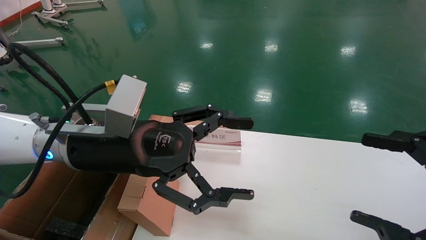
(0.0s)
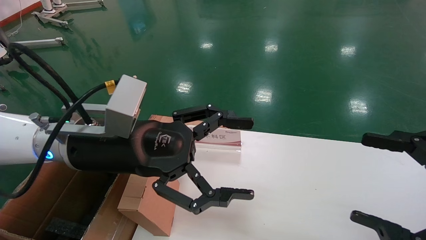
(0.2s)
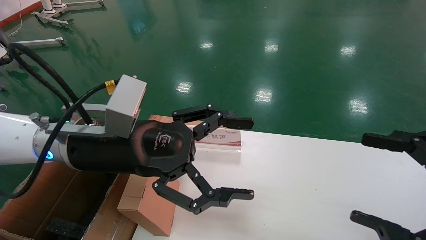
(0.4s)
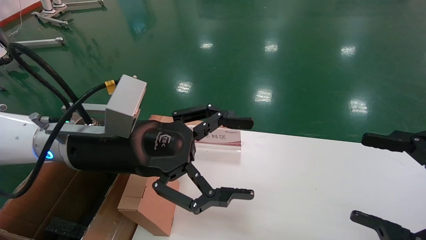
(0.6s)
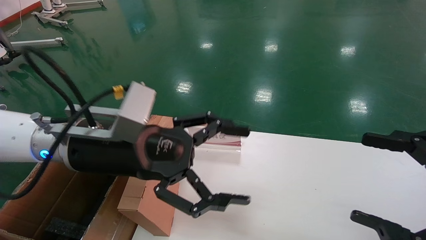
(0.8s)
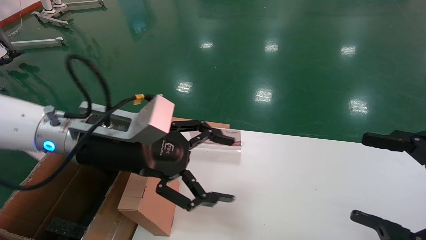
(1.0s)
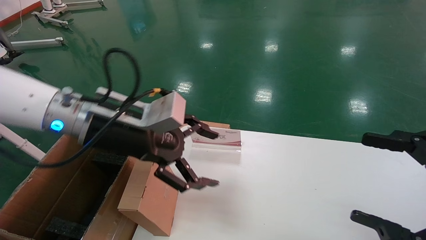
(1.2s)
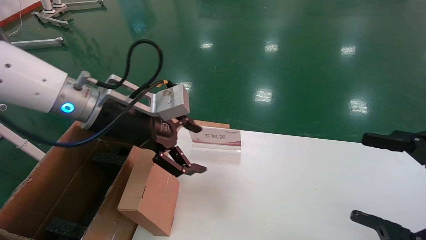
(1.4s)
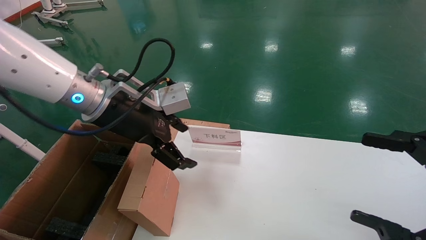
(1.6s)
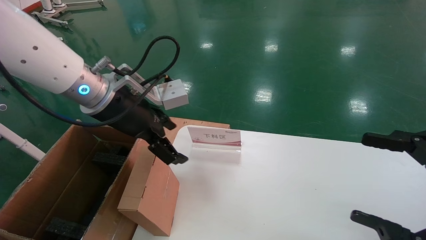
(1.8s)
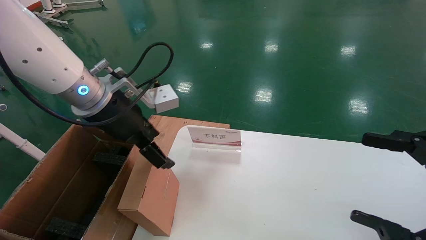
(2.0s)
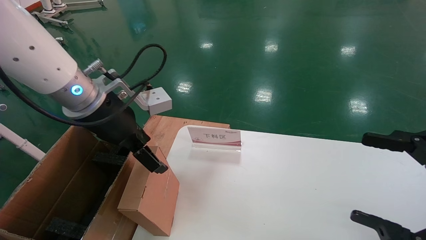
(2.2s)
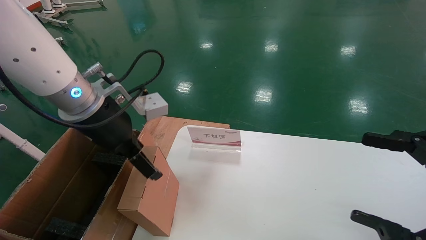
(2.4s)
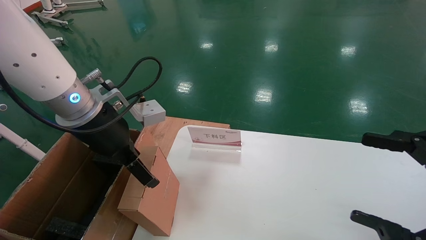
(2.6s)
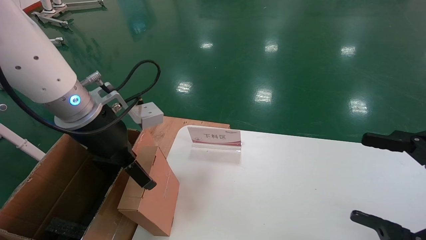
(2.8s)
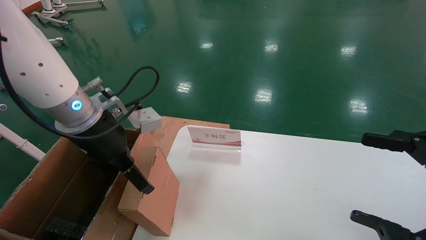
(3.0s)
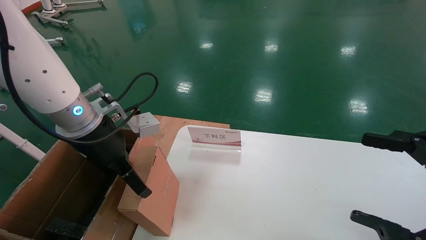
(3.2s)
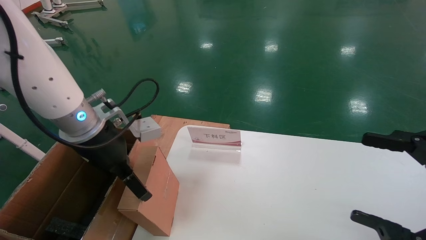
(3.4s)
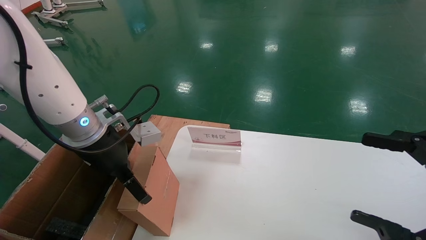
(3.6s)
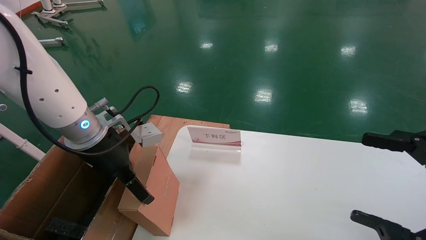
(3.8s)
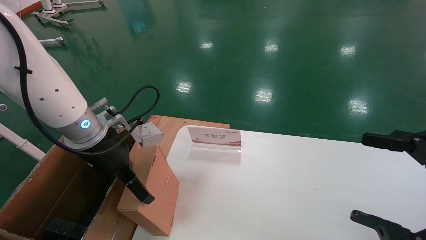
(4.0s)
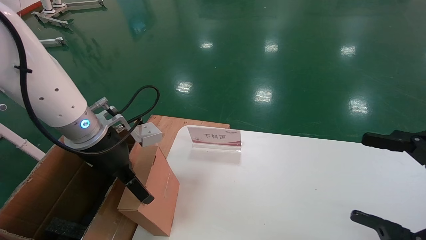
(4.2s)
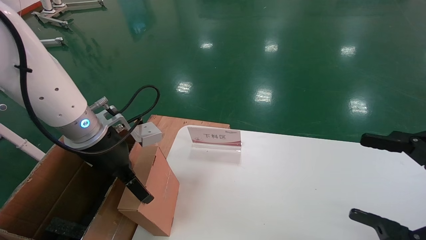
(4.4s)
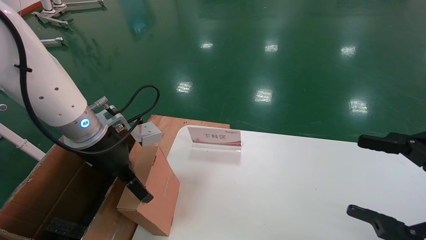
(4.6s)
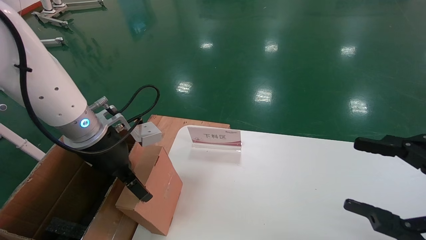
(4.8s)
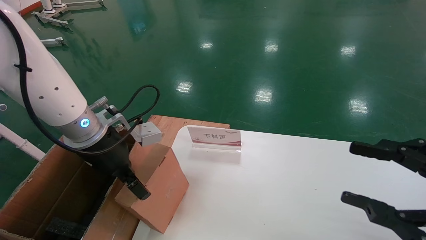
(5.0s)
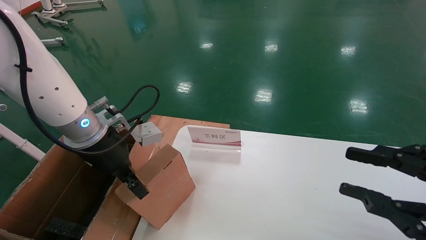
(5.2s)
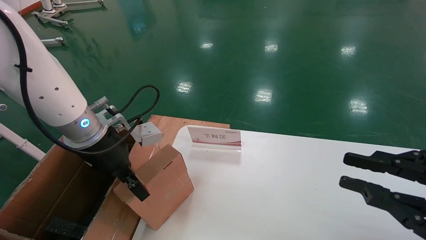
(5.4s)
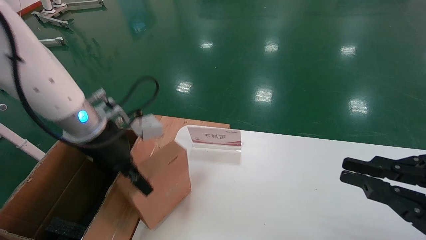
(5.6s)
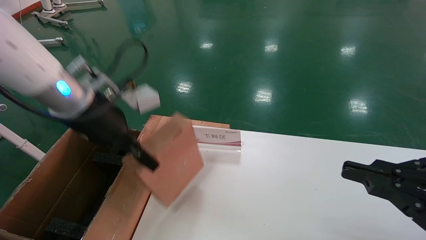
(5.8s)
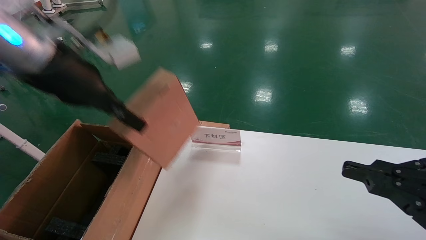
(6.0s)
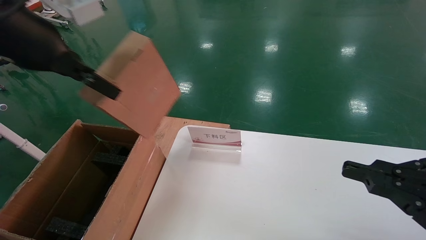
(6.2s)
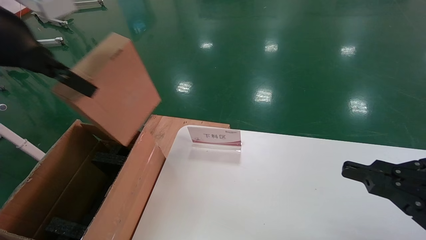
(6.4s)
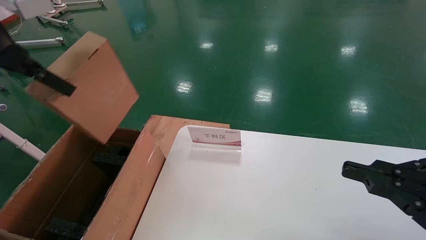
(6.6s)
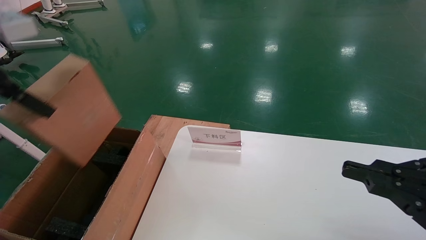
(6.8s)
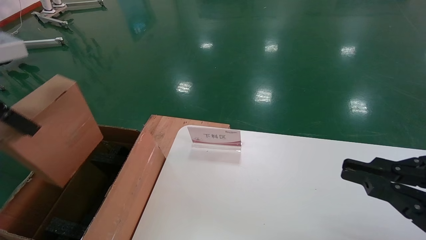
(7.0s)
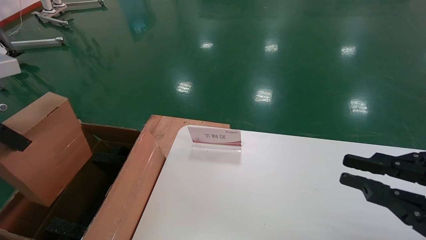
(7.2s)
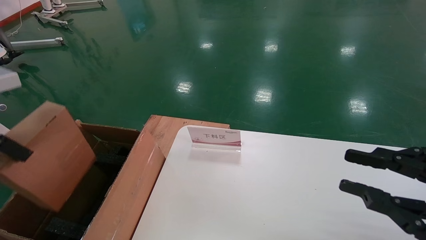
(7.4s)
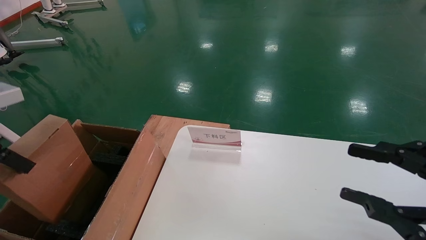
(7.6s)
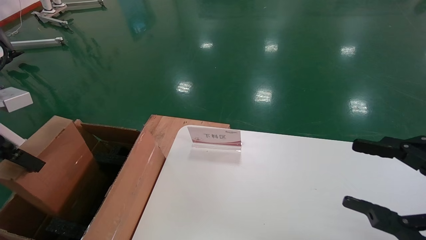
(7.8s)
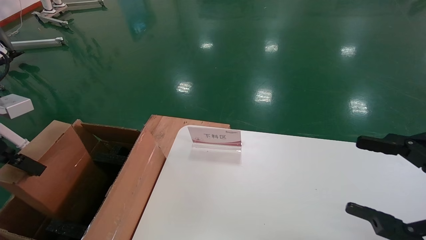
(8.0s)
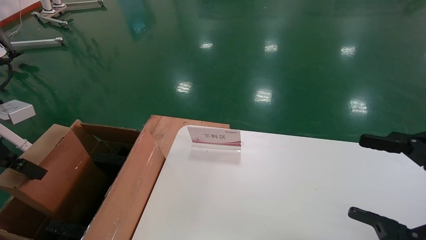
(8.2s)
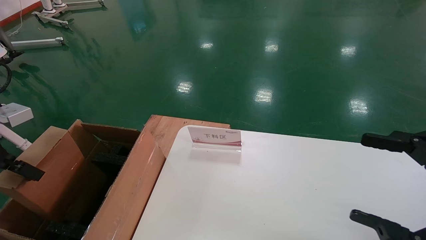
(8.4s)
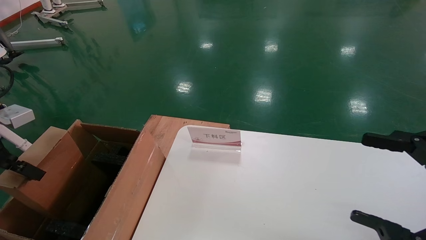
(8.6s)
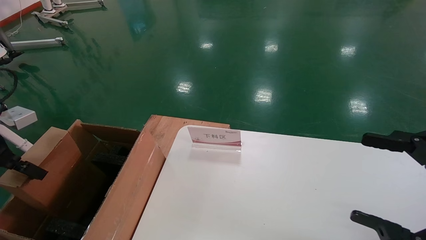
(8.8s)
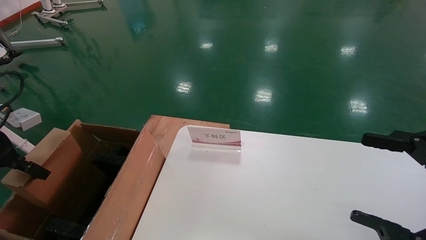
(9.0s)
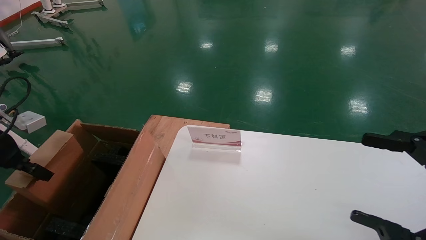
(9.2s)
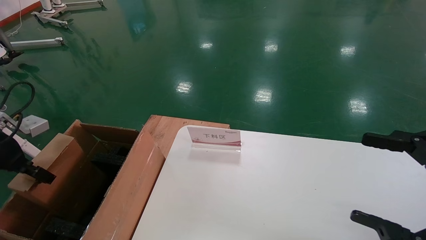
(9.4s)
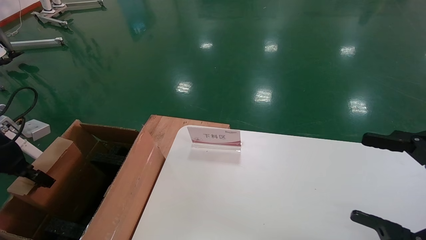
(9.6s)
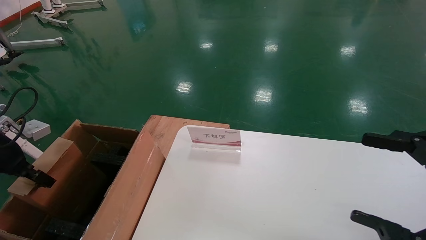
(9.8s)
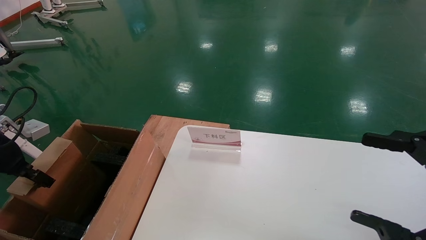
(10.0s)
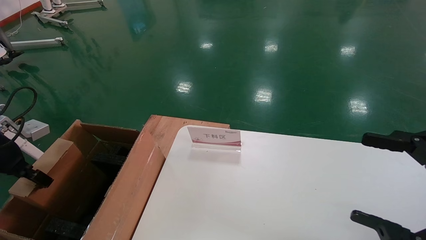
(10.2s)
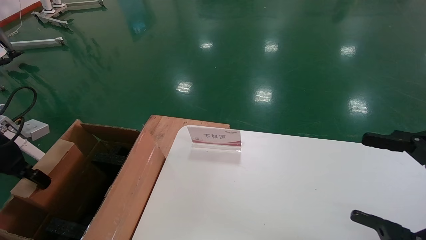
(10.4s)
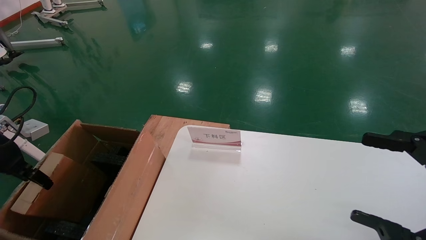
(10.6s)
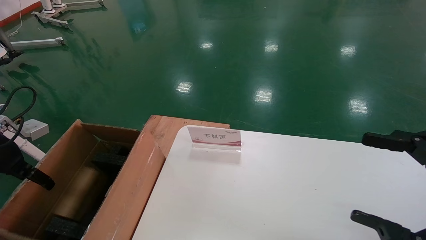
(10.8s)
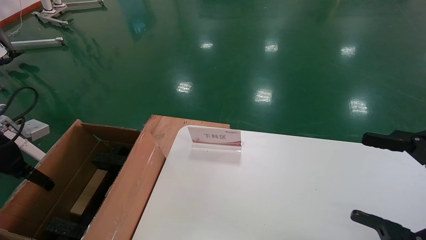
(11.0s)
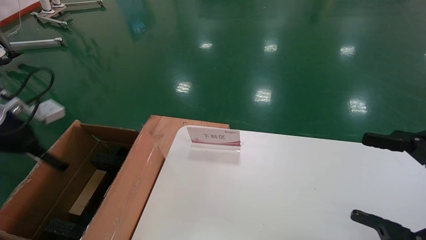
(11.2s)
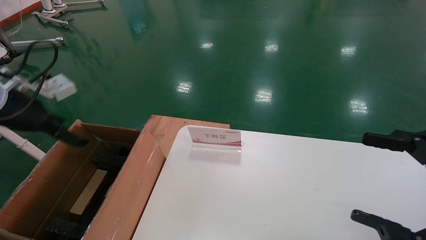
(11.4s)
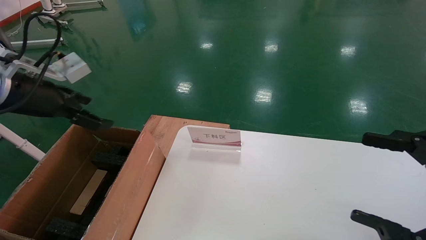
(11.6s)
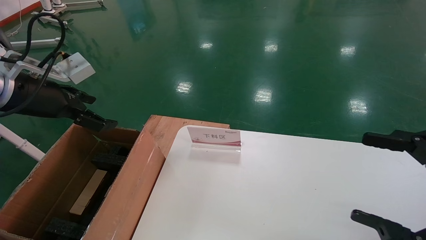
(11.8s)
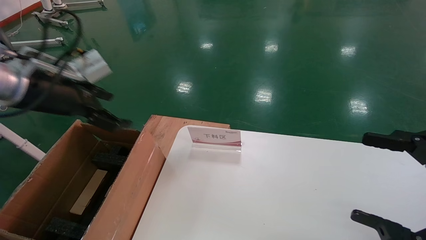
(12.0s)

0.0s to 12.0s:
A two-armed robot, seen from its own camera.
Task of the whole recording: pick up the small cardboard box and load it into the large cardboard box.
Step, 1.0s to 5.2s: Pick up the mouse and power cord box.
Step, 5.4s to 10.6s: Place the mouse and power cord box into the case.
0.0s to 1.6s: The left gripper shifts about 5 cm forward.
3.0s to 4.4s: There are only small adjustments of the grippers.
4.4s to 6.0s: The left gripper travels upward by approximately 15 cm, and closes, while the right gripper closes.
6.0s to 7.6s: The left gripper moves to the left and backward, some 15 cm.
7.6s to 9.0s: The right gripper opens its fingers, while the left gripper shifts approximately 10 cm downward and to the left.
9.0s to 10.4s: The grippers move only a little.
10.4s to 12.0s: The left gripper heads to the right and upward, covering roughly 20 cm, and opens its fingers.

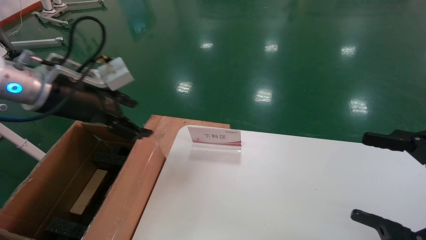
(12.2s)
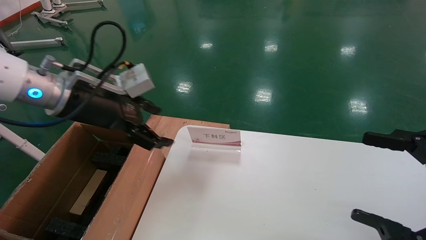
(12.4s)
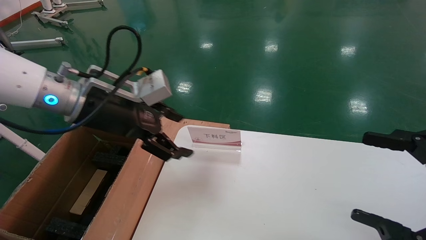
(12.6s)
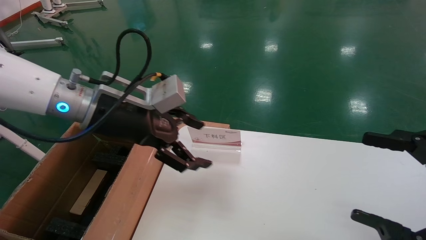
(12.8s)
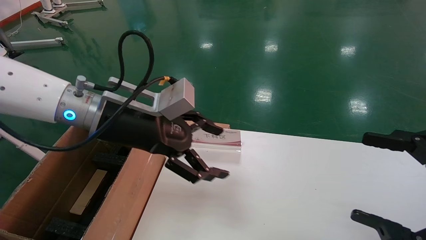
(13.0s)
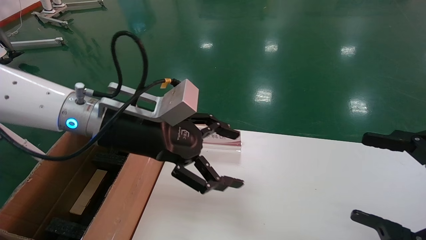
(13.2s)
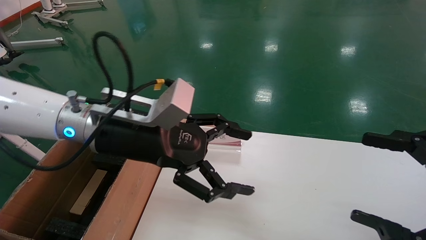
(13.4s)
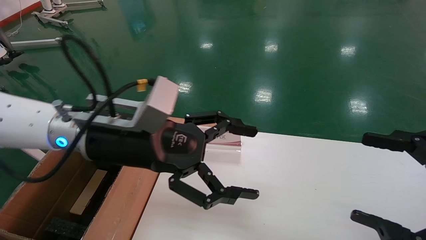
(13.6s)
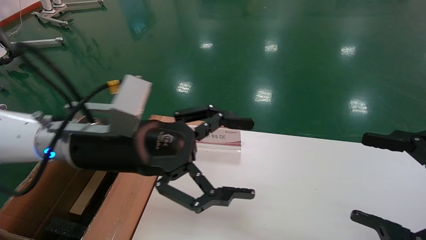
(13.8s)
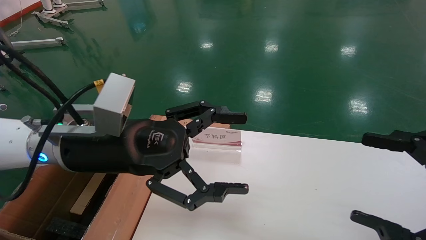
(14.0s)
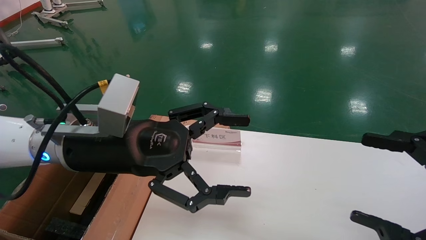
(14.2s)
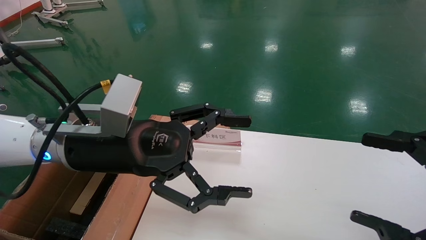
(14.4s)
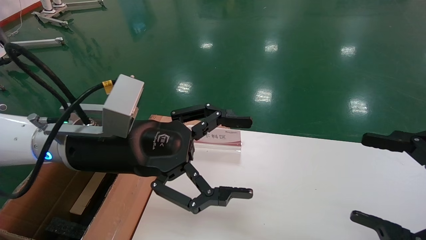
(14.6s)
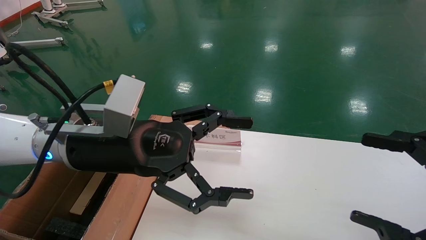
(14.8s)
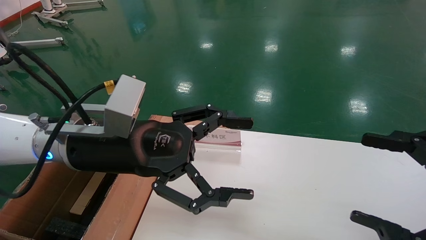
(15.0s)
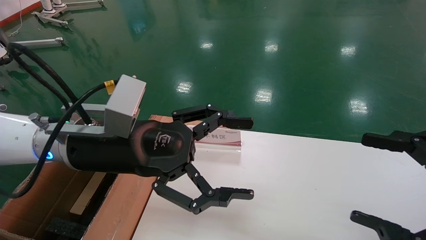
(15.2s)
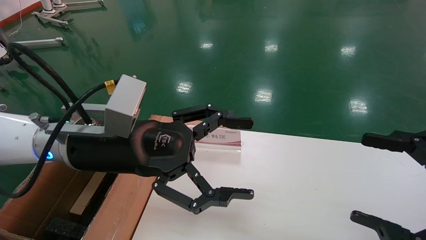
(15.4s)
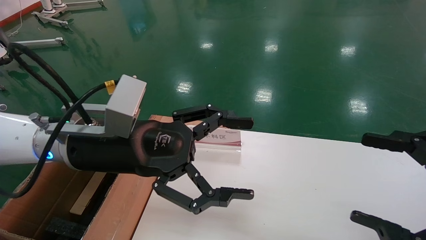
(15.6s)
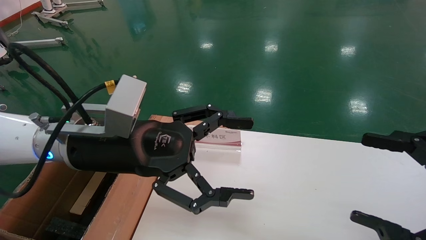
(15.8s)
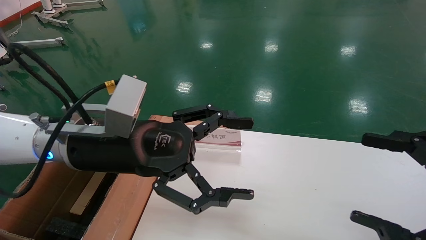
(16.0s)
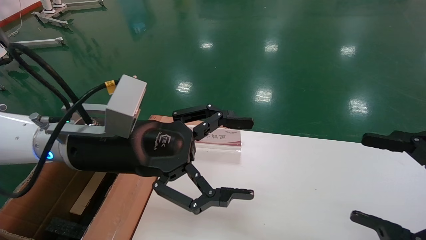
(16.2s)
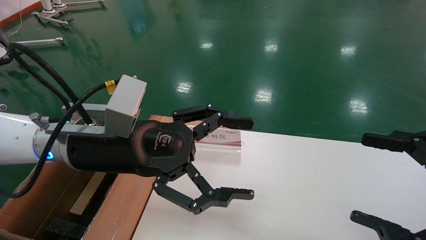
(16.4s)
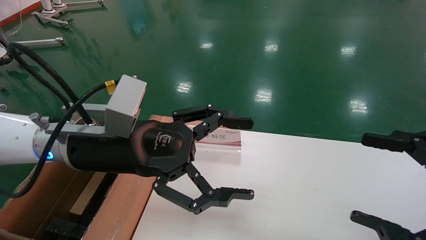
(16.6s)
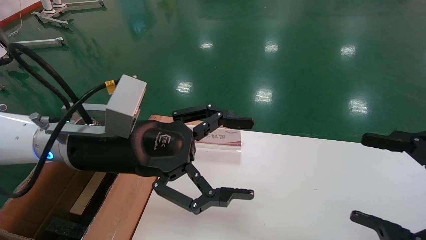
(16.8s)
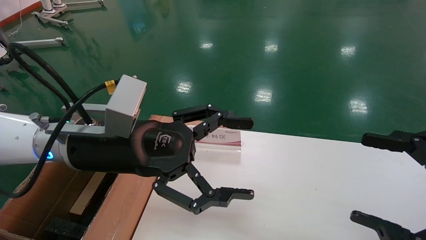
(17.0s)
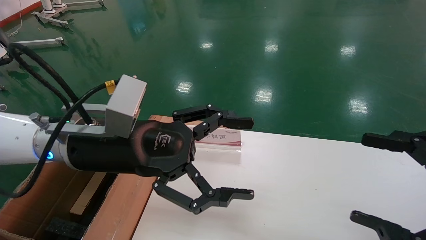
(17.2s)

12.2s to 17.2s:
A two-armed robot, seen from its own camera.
Task of the whole recording: pick up the small cardboard box and load it into the large cardboard box.
12.2s to 13.8s: The left gripper heads to the right and downward, covering some 15 cm.
13.8s to 17.2s: Both grippers stay about where they are.
